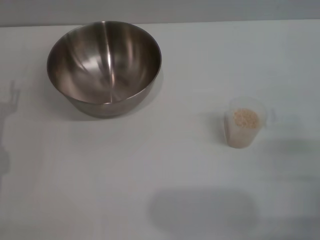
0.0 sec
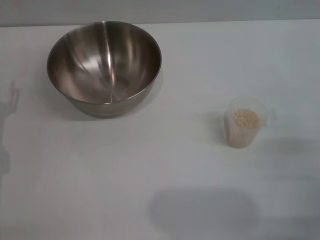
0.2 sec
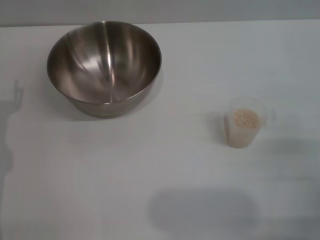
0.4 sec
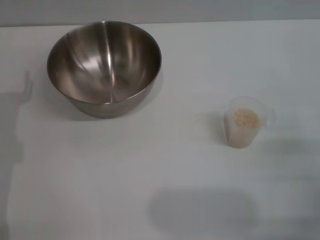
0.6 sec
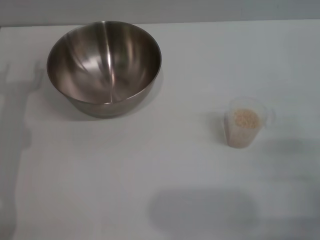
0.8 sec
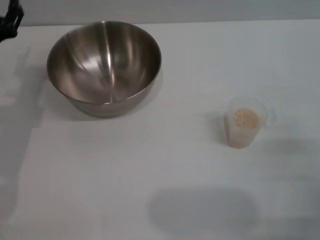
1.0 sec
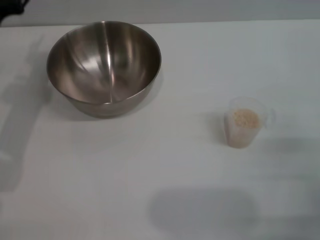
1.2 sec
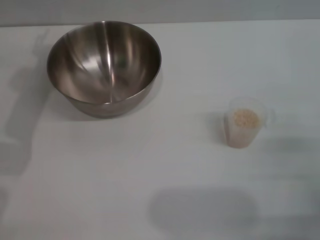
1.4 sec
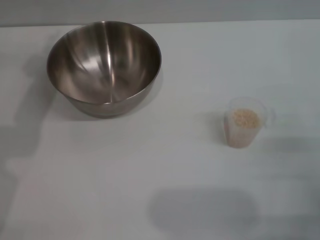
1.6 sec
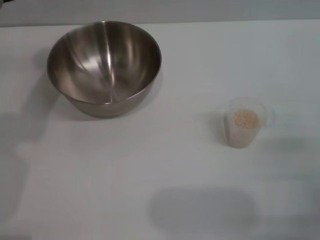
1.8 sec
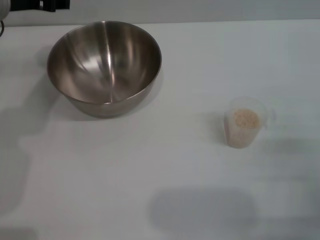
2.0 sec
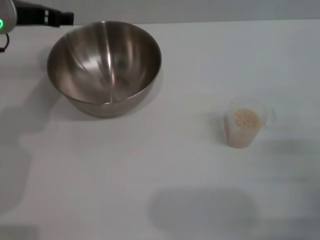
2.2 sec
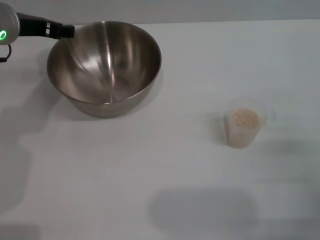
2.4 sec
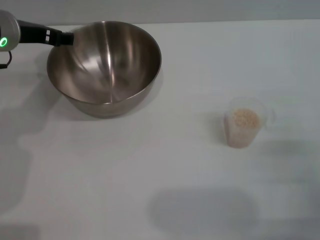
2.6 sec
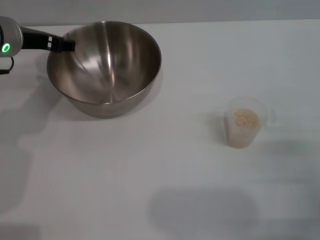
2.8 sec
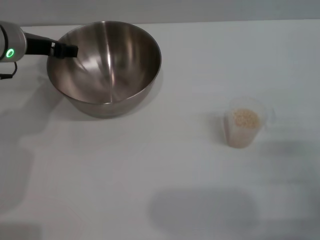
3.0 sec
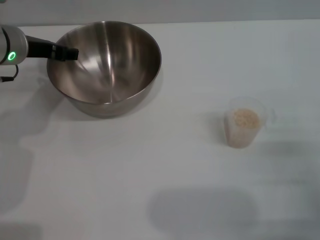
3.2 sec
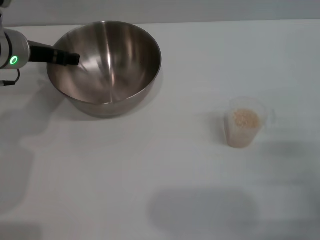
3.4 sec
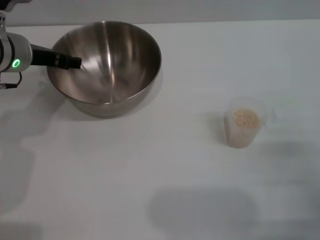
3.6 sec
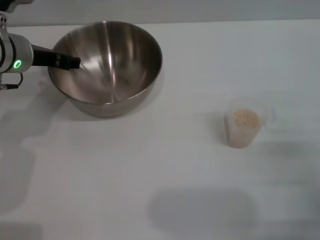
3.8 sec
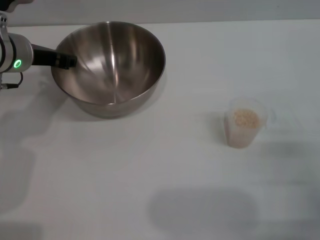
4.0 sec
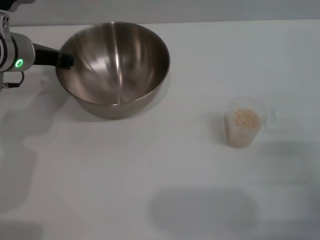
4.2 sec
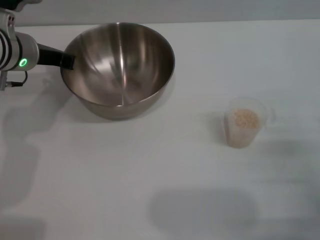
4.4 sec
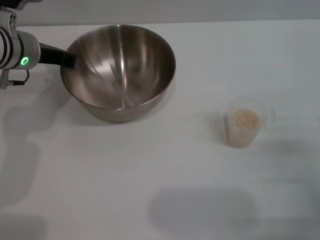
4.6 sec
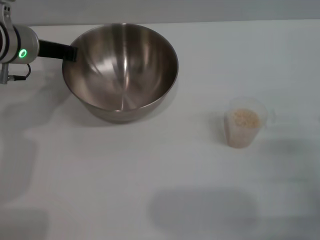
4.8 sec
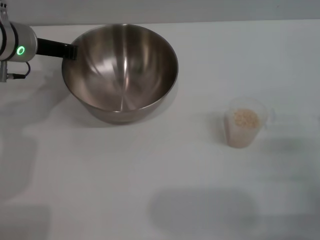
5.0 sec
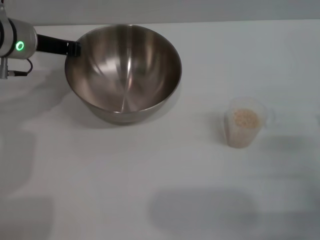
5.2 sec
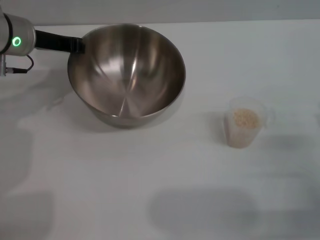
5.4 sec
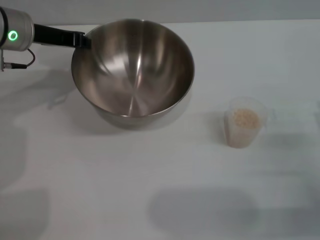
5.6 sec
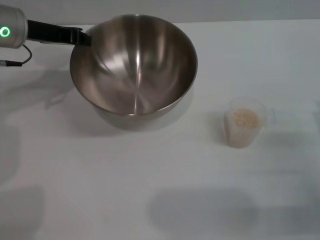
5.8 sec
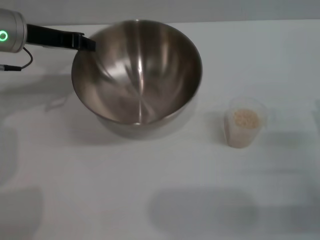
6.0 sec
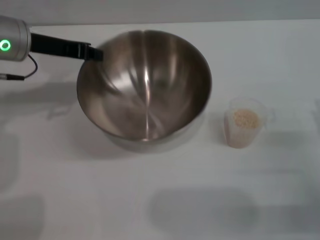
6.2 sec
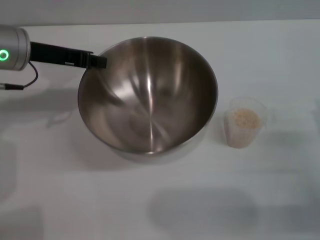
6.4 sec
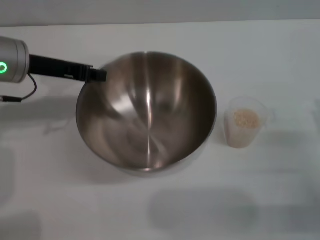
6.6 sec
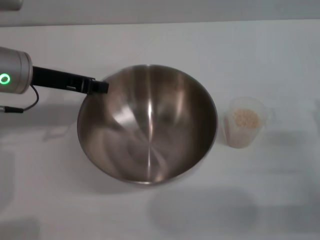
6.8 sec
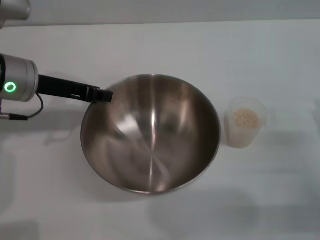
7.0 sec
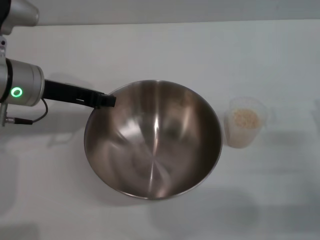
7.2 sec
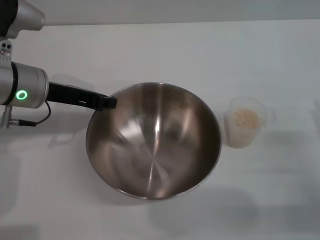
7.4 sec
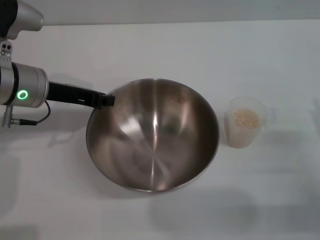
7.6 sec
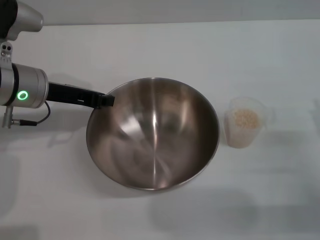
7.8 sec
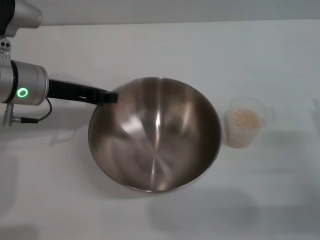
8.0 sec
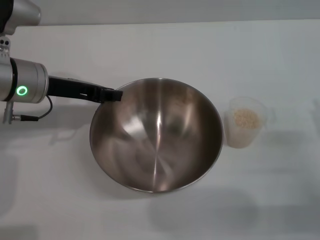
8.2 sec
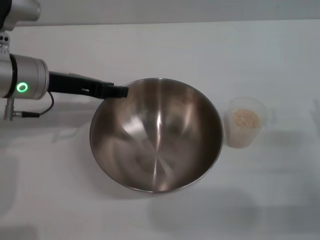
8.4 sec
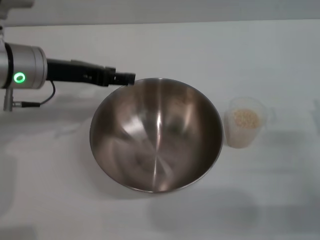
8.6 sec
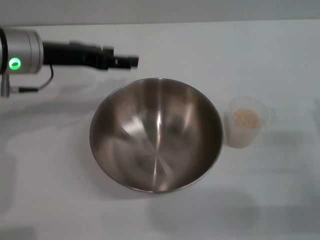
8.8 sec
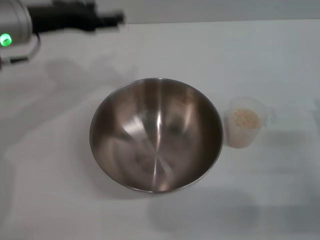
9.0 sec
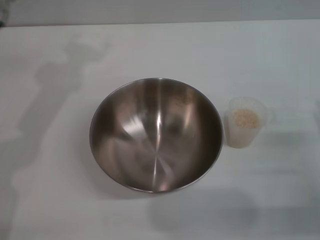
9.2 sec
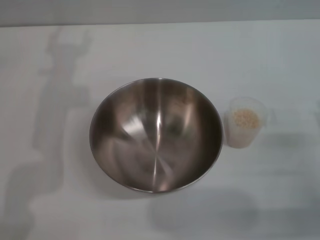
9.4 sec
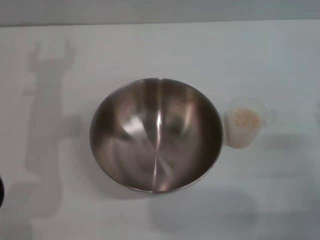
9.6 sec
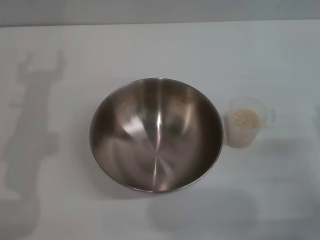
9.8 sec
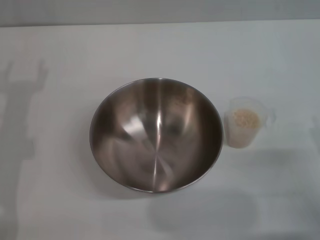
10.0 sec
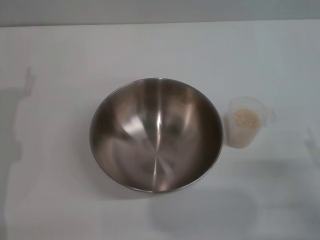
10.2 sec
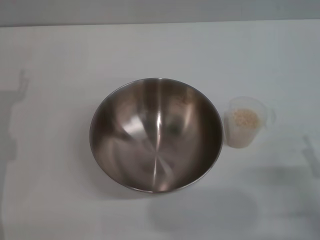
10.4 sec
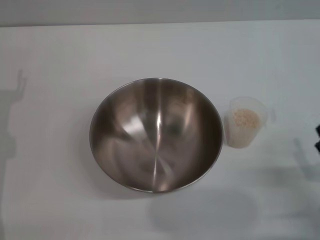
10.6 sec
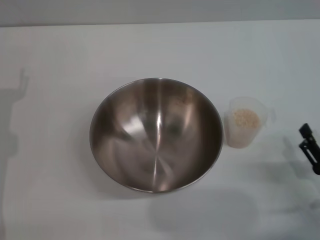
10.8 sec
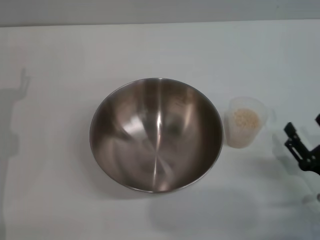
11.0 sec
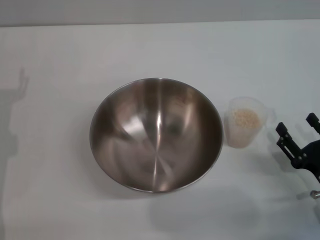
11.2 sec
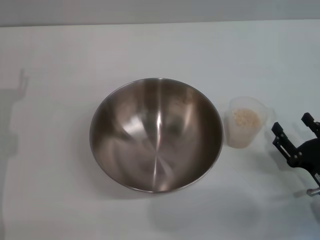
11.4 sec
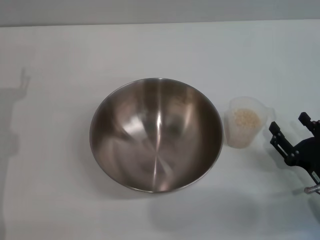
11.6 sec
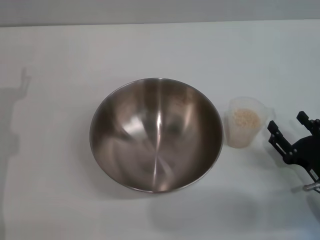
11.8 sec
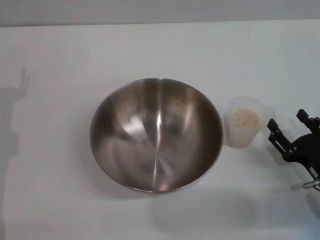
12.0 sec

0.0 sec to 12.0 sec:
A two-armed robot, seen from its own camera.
Task of the whole recording: Place the bowl in the middle of the table with one hand and pour the rice from the grain cup into it with the other hand.
Step, 0.0 sec to 6.0 sec: Pick up the bowl with the left gripper.
Step, 6.2 sec to 9.0 sec: Place the bowl in the center of view with the left gripper.
1.6 sec to 3.0 sec: The left gripper heads downward, covering roughly 5 cm.
3.0 sec to 4.4 sec: The left gripper closes.
6.0 sec to 7.6 sec: The left gripper heads backward, covering about 5 cm.
7.6 sec to 9.0 sec: The left gripper goes some 5 cm upward, and opens up.
9.0 sec to 10.4 sec: The left gripper shifts some 20 cm downward, to the left and backward.
10.4 sec to 12.0 sec: The right gripper travels forward by roughly 5 cm.

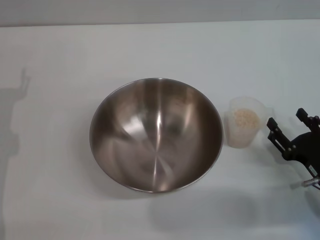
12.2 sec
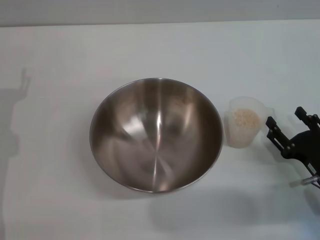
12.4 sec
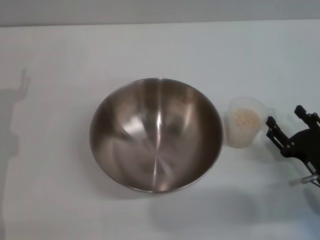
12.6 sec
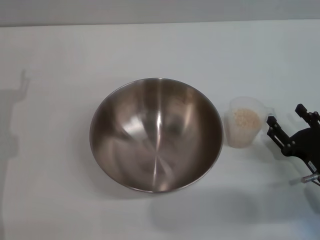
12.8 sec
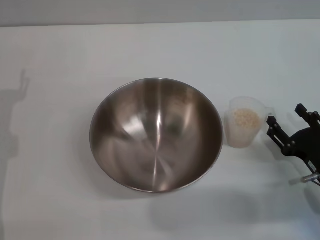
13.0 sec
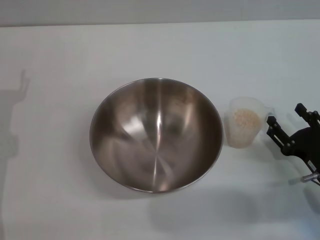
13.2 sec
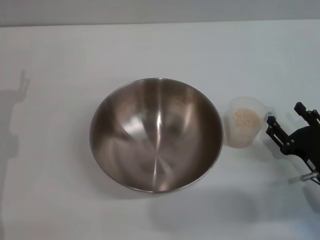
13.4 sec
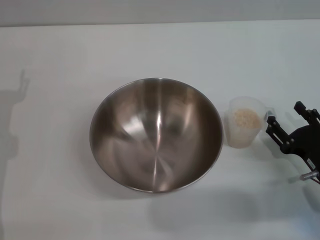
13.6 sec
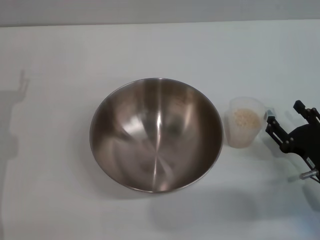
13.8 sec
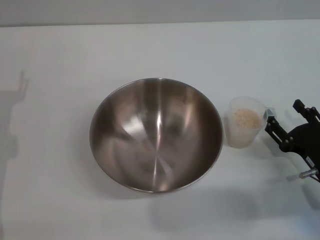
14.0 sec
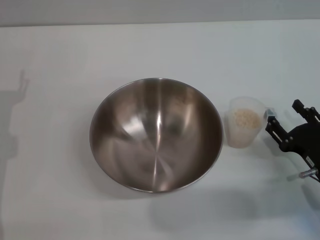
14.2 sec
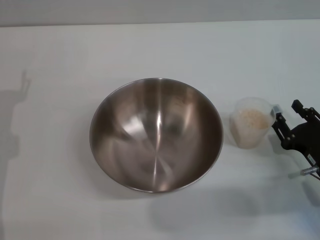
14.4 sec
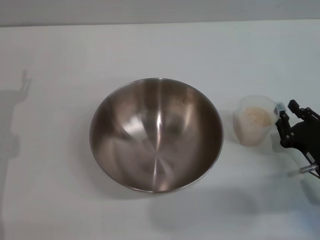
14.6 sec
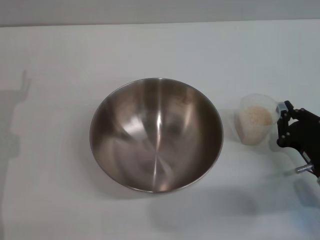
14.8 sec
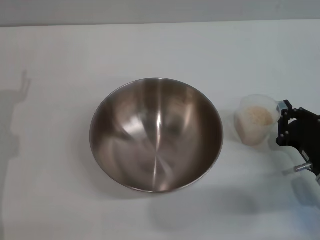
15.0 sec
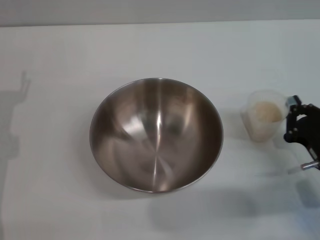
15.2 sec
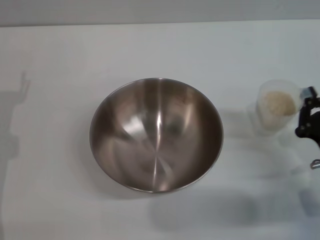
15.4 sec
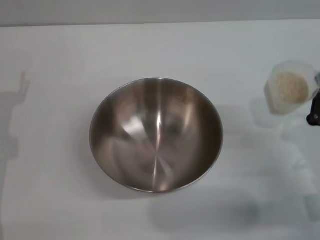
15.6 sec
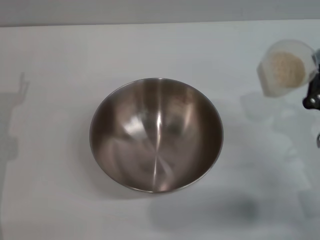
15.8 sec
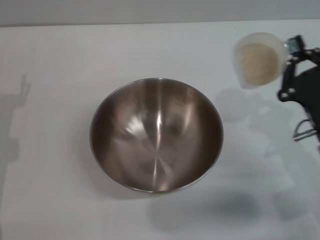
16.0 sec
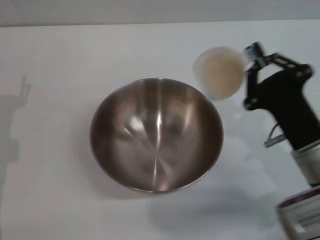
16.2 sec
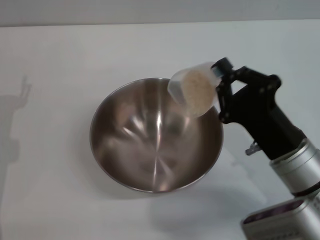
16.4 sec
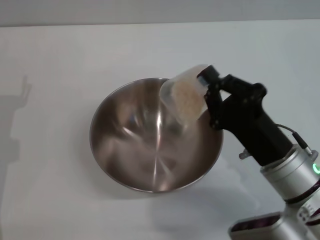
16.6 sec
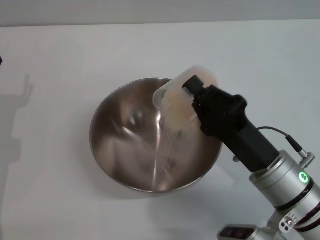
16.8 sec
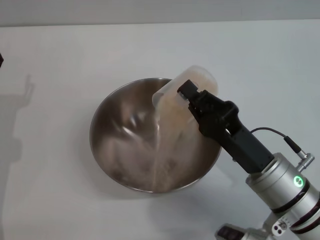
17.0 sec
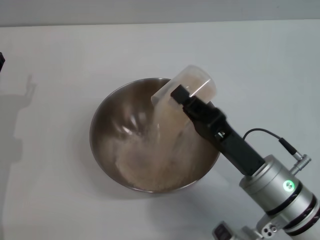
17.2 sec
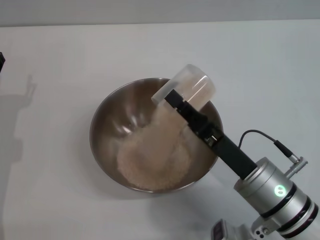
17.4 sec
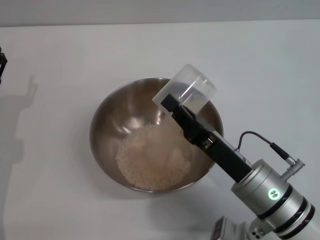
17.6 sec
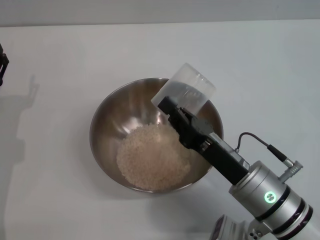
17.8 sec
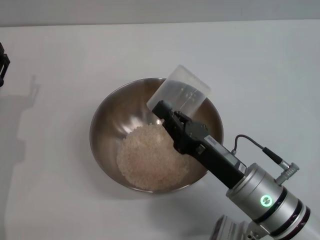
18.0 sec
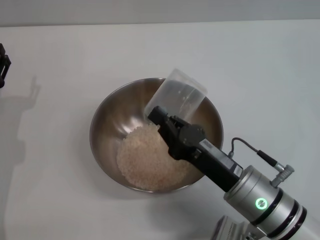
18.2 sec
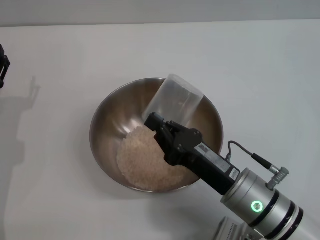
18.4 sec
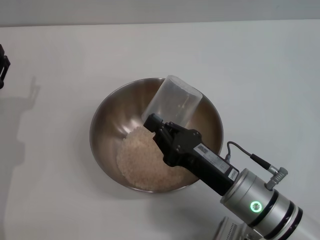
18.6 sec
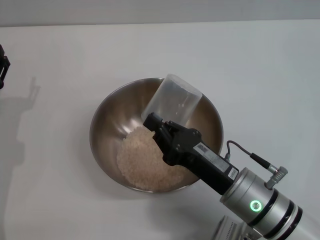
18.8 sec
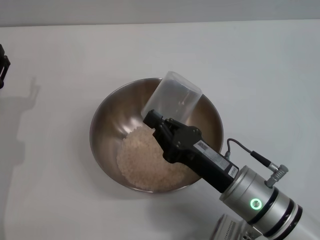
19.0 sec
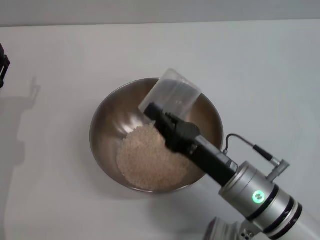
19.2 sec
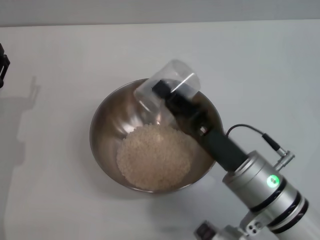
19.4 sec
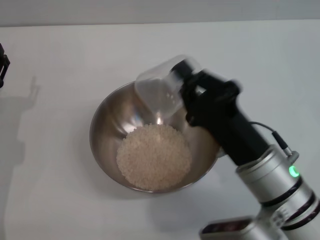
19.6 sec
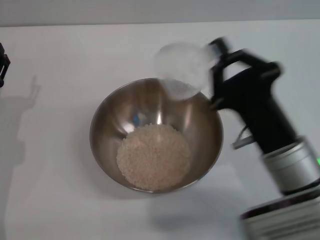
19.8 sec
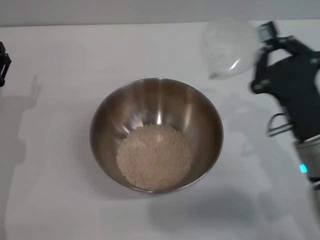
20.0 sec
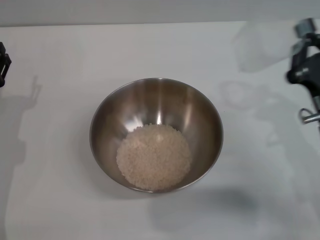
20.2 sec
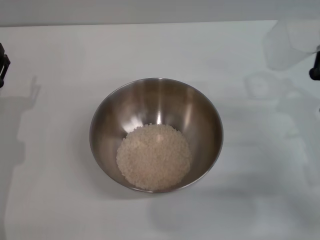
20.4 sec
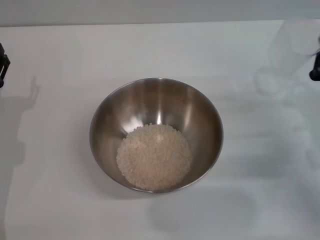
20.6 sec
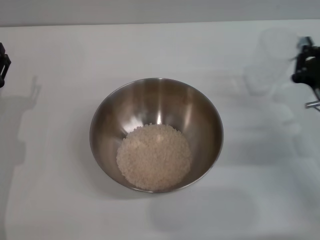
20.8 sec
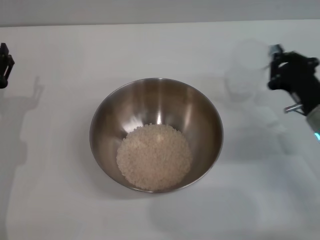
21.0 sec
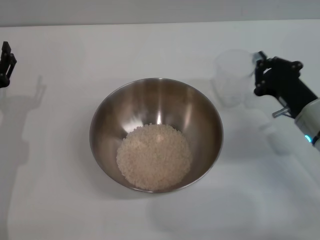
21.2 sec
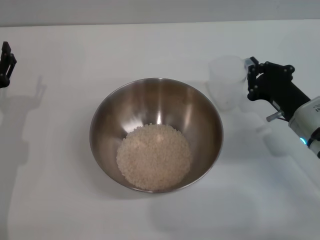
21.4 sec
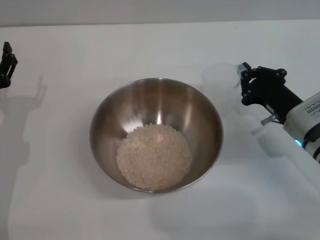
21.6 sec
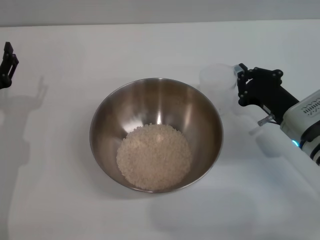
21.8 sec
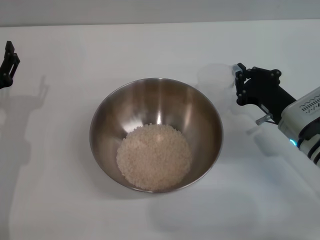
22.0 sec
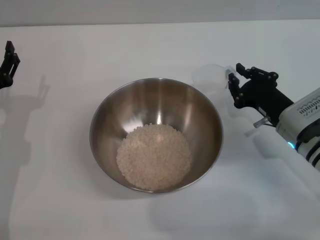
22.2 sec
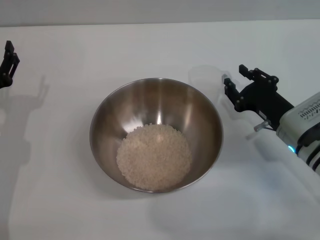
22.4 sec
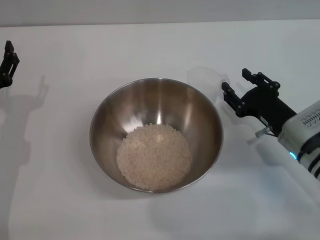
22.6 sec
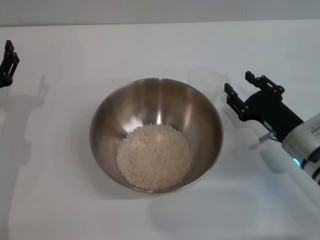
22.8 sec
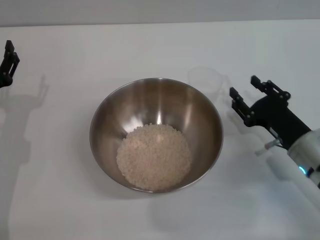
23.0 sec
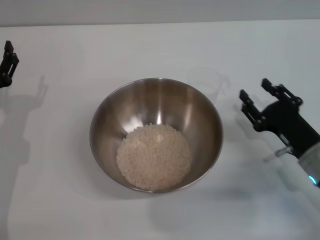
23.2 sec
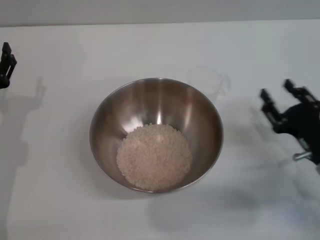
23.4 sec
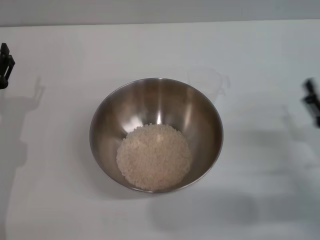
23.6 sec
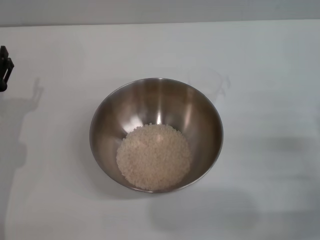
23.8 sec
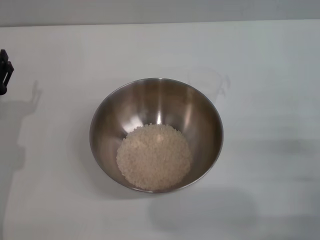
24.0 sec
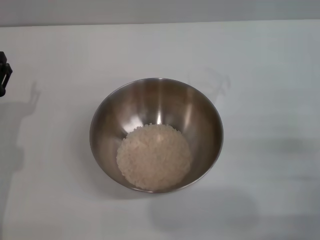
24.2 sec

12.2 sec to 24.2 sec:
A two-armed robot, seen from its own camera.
Task of the whole recording: Place the bowl in the middle of the table with one hand and pour the rice from the grain cup into it with the other hand.
Step, 12.2 sec to 15.8 sec: Pick up the cup with rice in it with the right gripper.
Step, 16.0 sec to 18.4 sec: Pour the rice from the cup into the bowl with the right gripper.
Step, 18.6 sec to 23.0 sec: Place the cup on the table with the right gripper.
12.2 sec to 13.8 sec: Both grippers stay about where they are.
13.8 sec to 15.2 sec: The right gripper closes its fingers.
15.2 sec to 16.6 sec: The right gripper heads to the left and upward, covering approximately 10 cm.
19.8 sec to 21.2 sec: The right gripper heads to the right, forward and downward, covering some 15 cm.
21.2 sec to 22.6 sec: The right gripper opens its fingers.
22.6 sec to 24.2 sec: The right gripper heads backward and to the right, covering roughly 15 cm, and opens.
